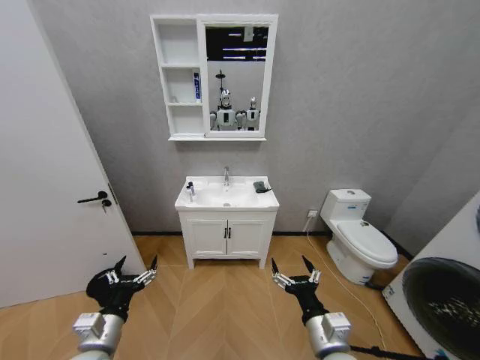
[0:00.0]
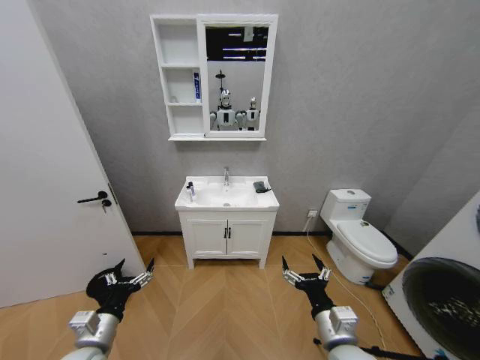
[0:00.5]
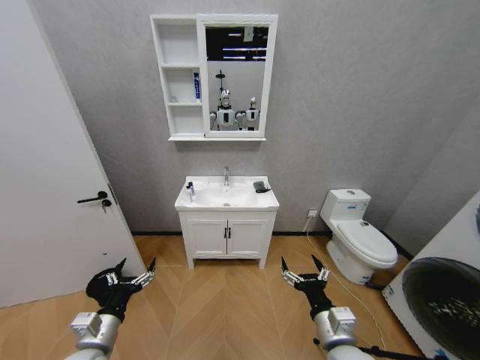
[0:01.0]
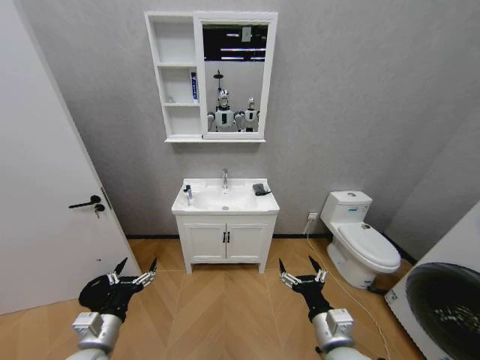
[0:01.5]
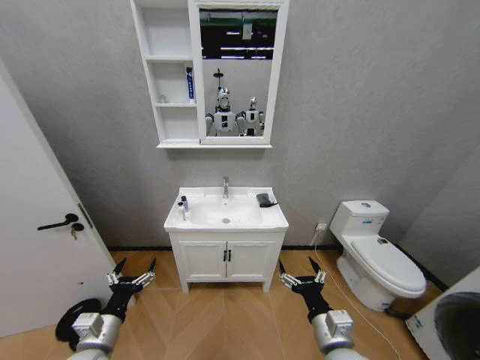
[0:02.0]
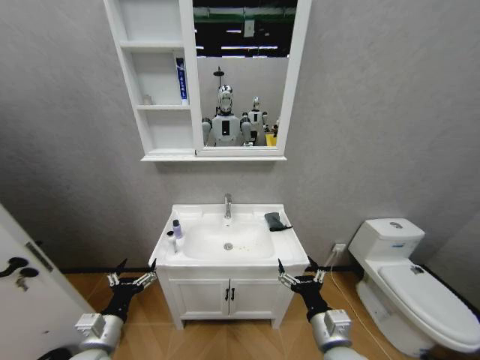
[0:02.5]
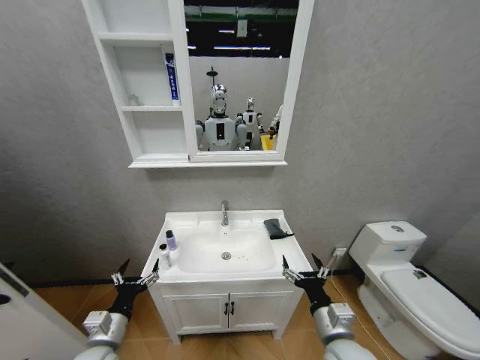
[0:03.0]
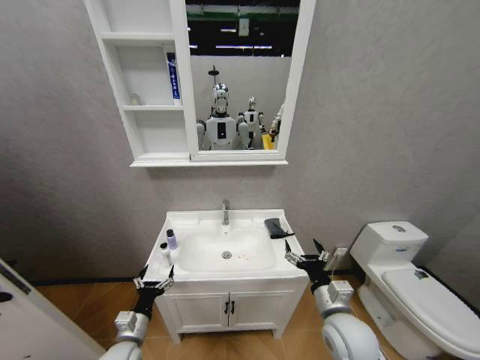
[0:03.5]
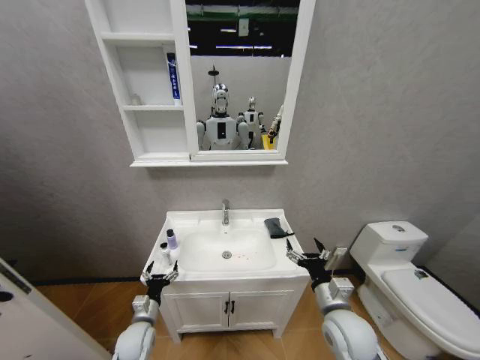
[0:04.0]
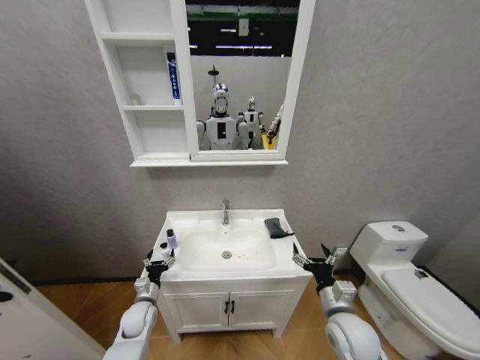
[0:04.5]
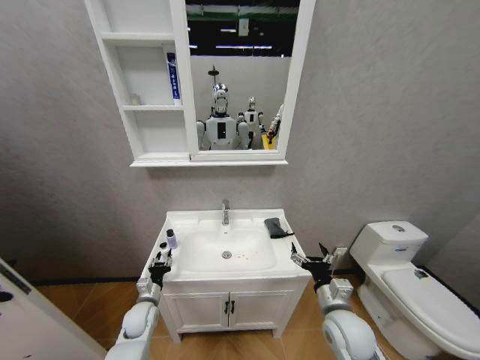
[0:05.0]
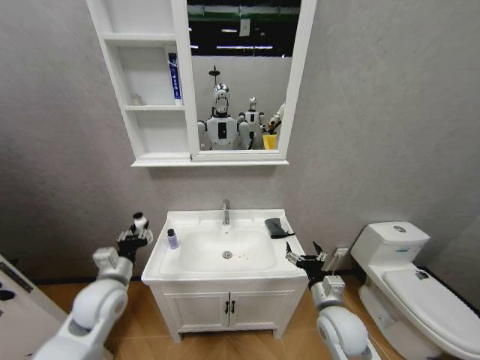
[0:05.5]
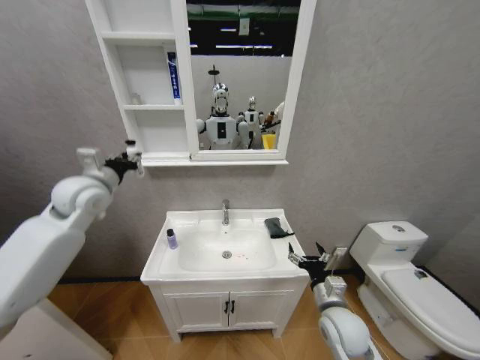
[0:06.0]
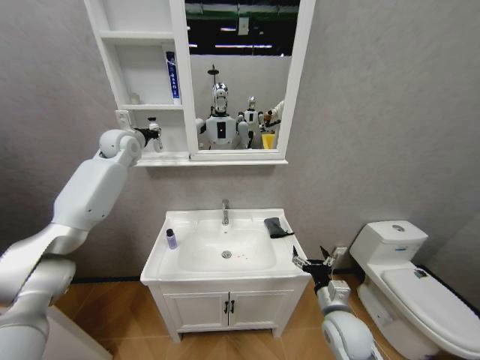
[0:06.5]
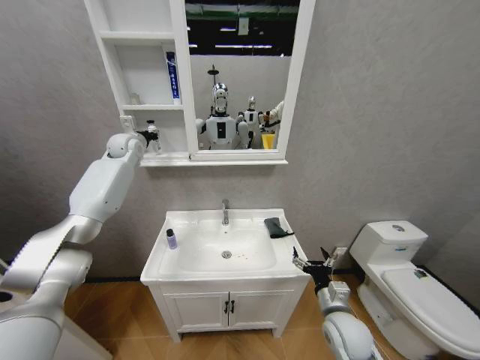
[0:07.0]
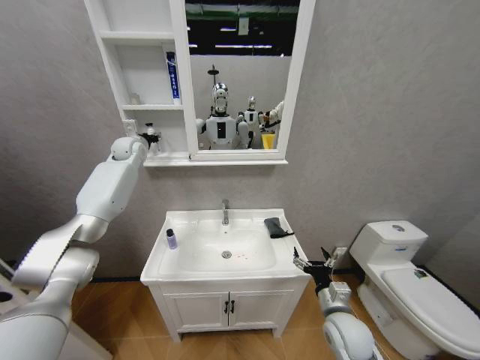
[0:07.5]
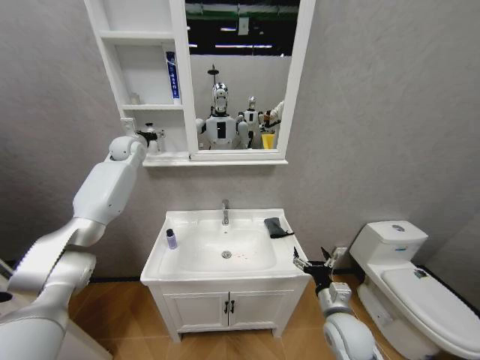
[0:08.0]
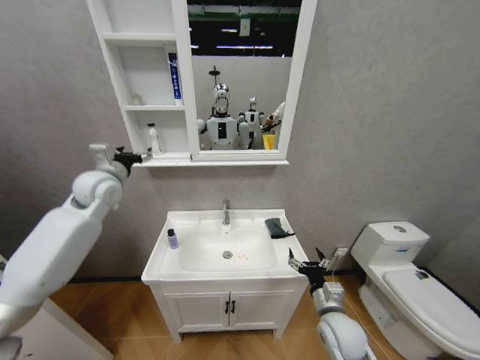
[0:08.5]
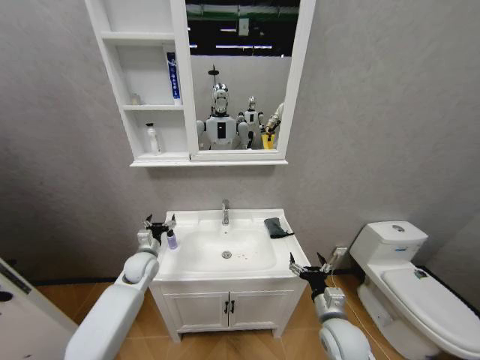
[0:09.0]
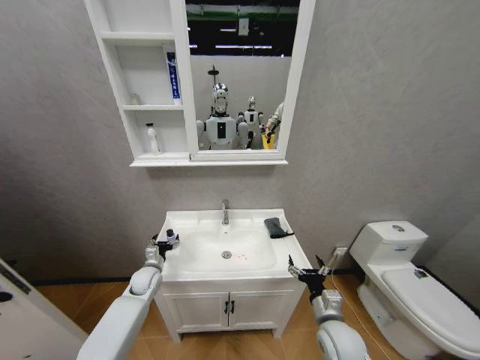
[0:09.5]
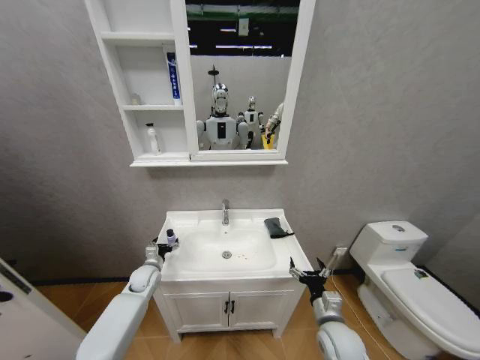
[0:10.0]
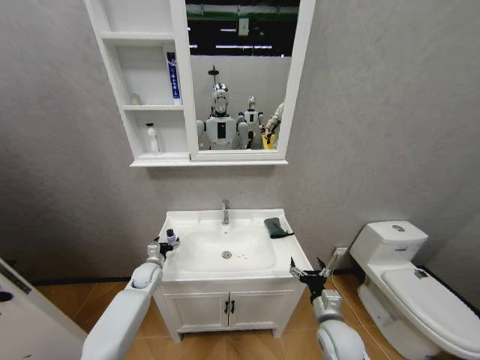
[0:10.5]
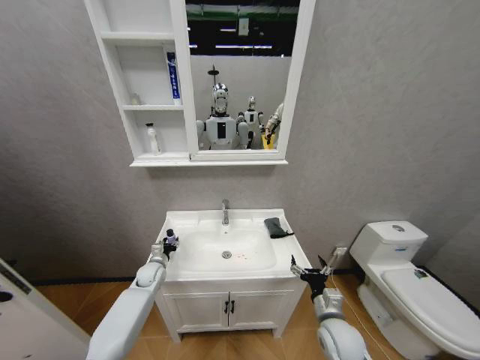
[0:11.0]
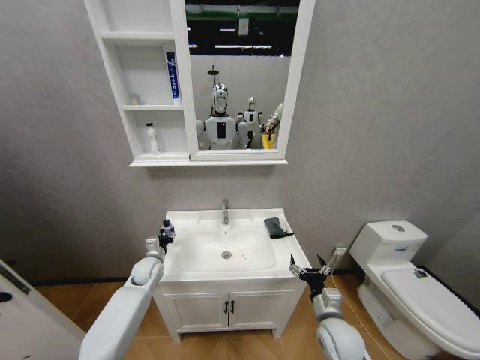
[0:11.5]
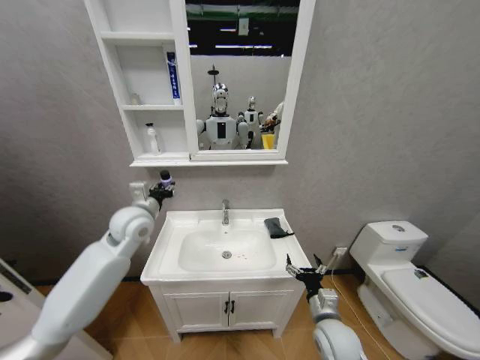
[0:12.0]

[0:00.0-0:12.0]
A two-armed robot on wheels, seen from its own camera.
Task of the whole recording: Move facial cleanser and shampoo from washbasin to cabinet, then wipe washbasin with towel.
0:02.0 to 0:04.0: The left gripper shifts about 15 cm downward and forward. The right gripper goes about 5 cm forward.
0:04.0 to 0:06.0: The left gripper is displaced upward and forward by roughly 50 cm, and closes up.
0:06.0 to 0:08.0: The left gripper goes about 20 cm forward, and opens its fingers.
0:08.0 to 0:10.0: The left gripper shifts about 50 cm downward and backward.
0:10.0 to 0:12.0: The left gripper heads upward, covering approximately 30 cm, and closes its fingers.

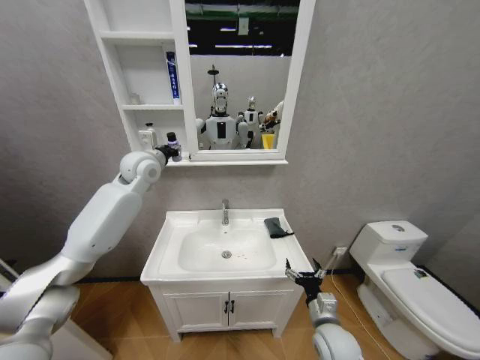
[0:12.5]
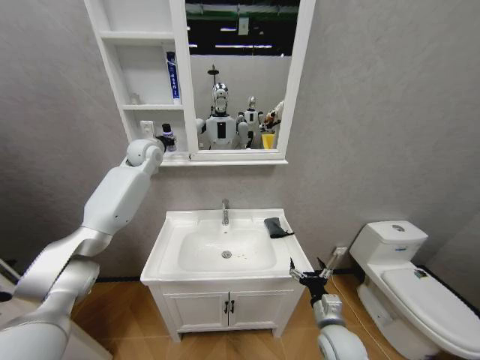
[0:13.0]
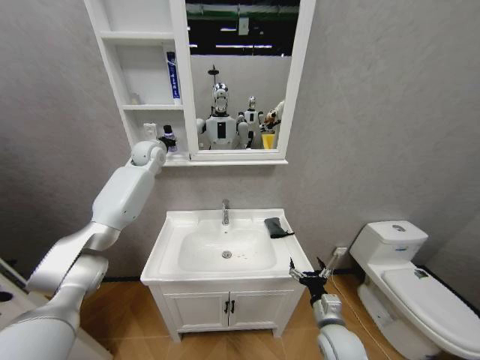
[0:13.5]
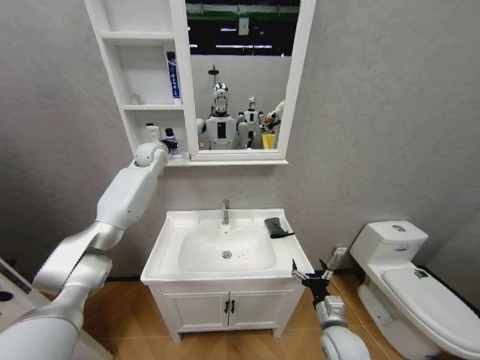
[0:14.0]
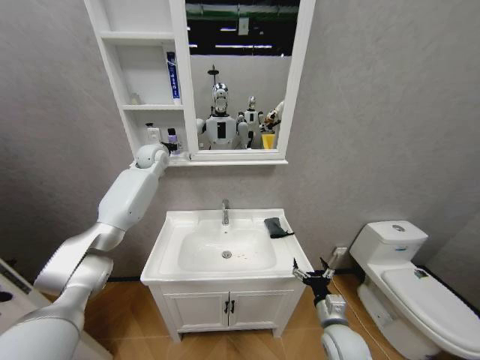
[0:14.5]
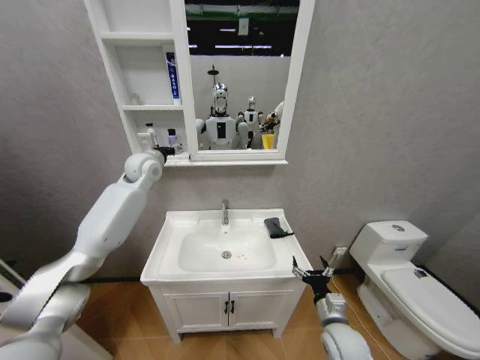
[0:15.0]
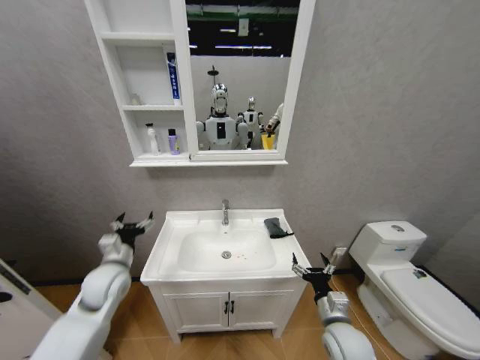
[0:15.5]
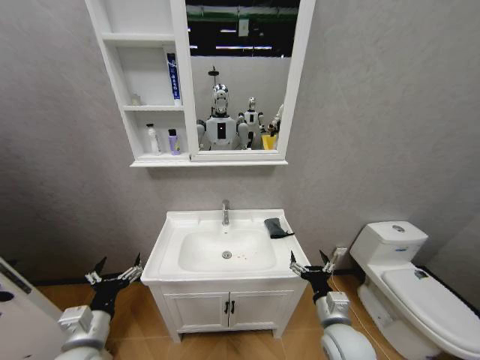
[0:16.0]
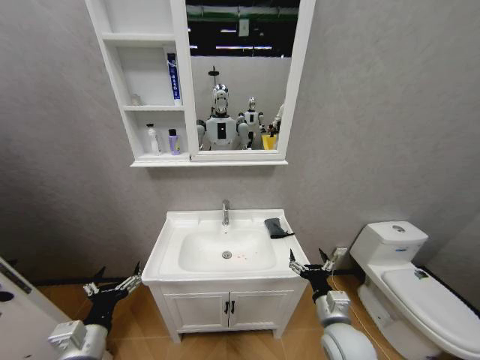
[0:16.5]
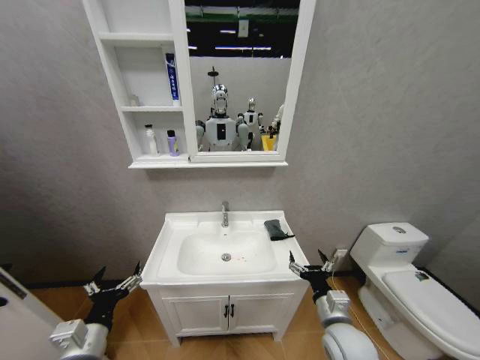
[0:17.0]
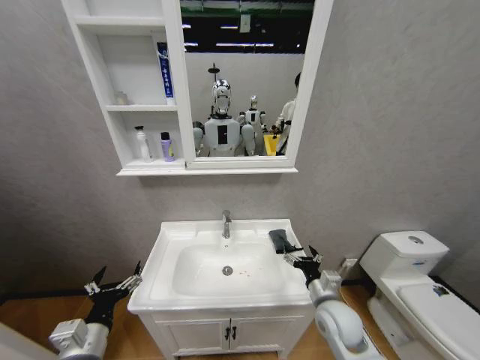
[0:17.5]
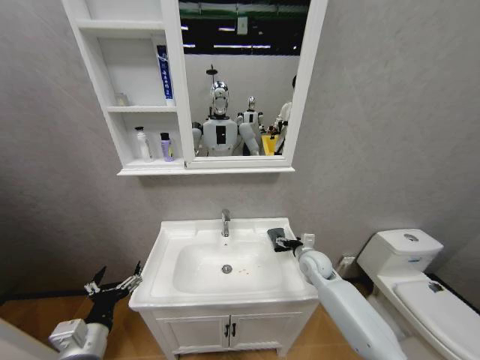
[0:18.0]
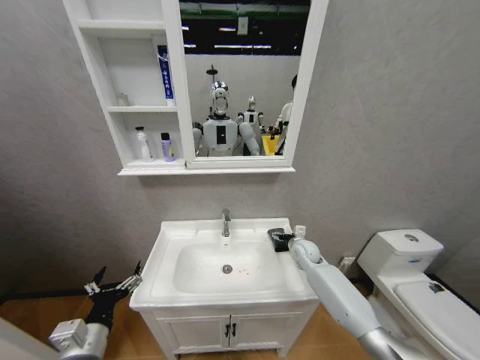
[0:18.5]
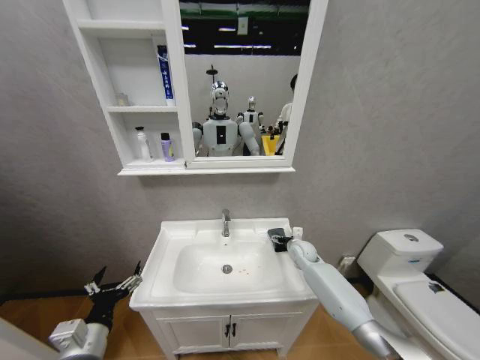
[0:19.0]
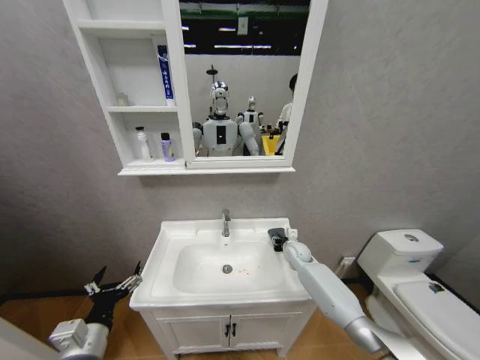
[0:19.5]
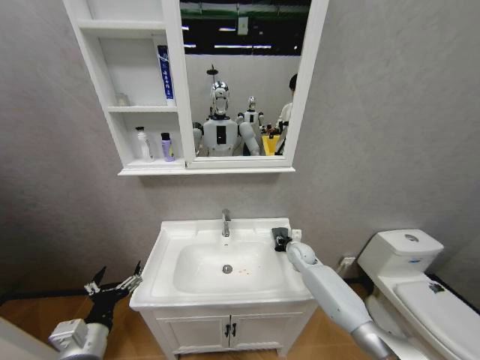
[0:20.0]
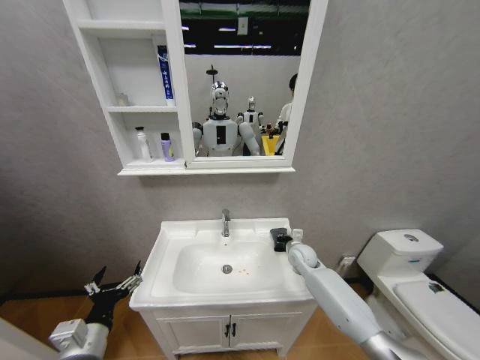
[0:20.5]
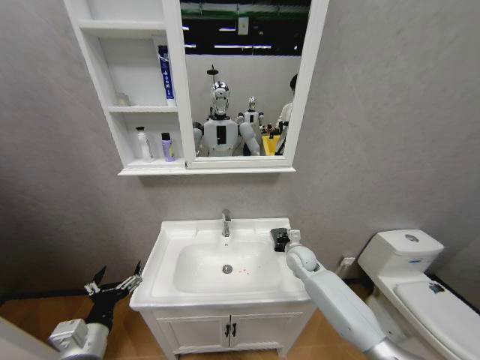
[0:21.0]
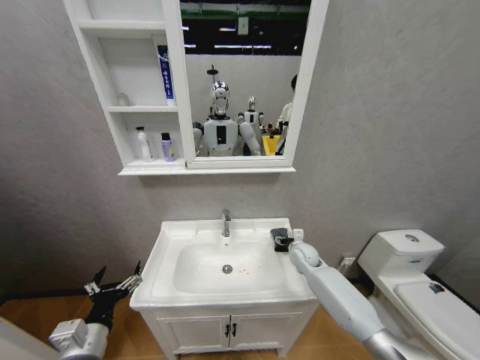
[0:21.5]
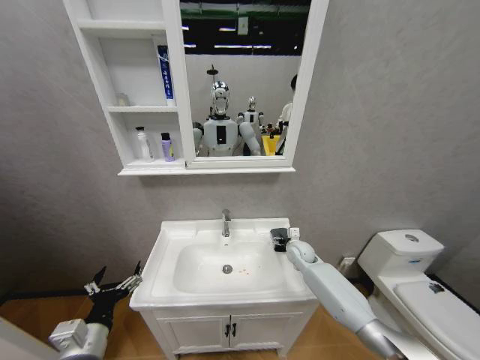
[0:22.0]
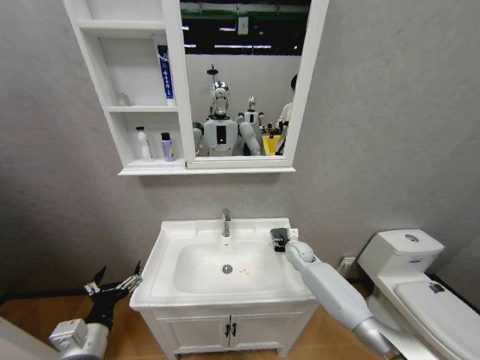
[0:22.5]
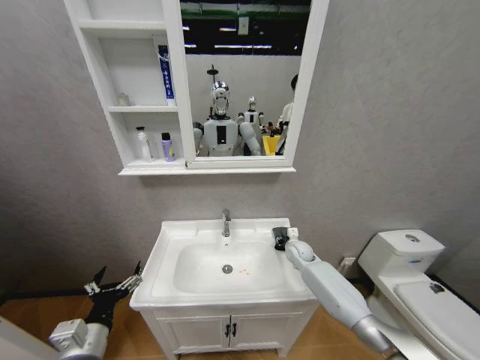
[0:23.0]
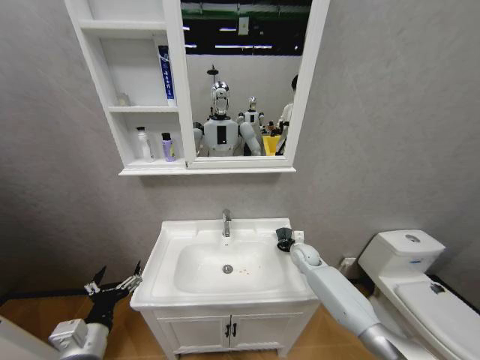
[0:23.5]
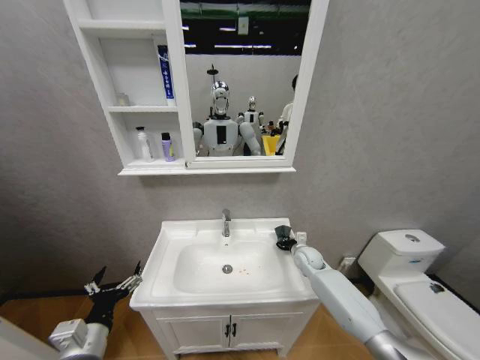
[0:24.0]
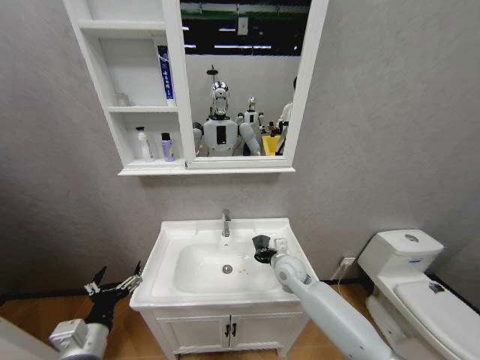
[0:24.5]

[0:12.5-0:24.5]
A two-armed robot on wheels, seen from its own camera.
Task of the whole recording: Move facial cleanser and shampoo from washbasin to cabinet, then wipe washbasin with towel.
0:12.5 to 0:14.5: The left gripper goes some 10 cm forward, and opens.
0:14.5 to 0:16.5: The right gripper moves upward, approximately 5 cm, while the left gripper goes approximately 60 cm backward and downward.
0:16.5 to 0:18.5: The right gripper heads forward, covering approximately 25 cm.
0:18.5 to 0:20.5: The right gripper closes its fingers.
0:20.5 to 0:22.5: The right gripper opens.
0:22.5 to 0:24.5: The right gripper is displaced backward and to the left by approximately 15 cm, and closes up.

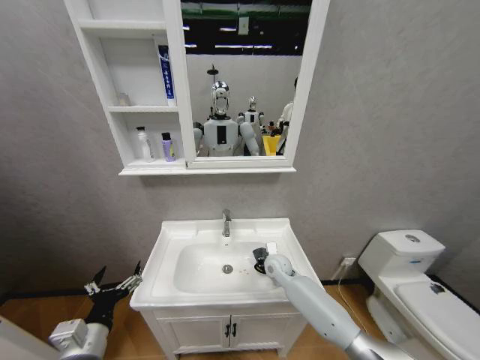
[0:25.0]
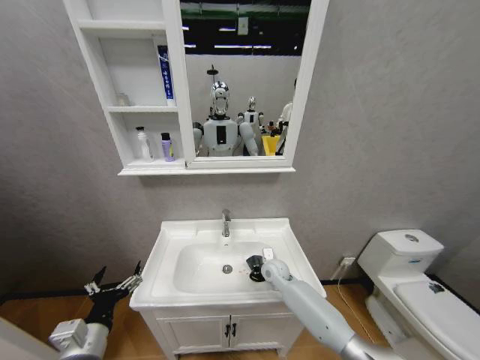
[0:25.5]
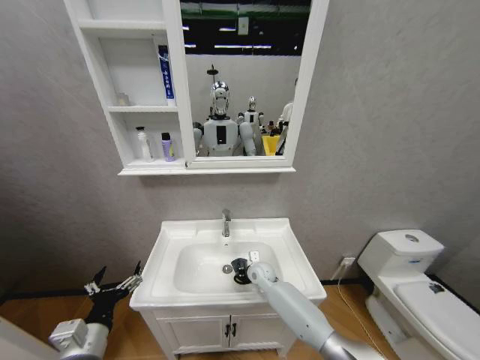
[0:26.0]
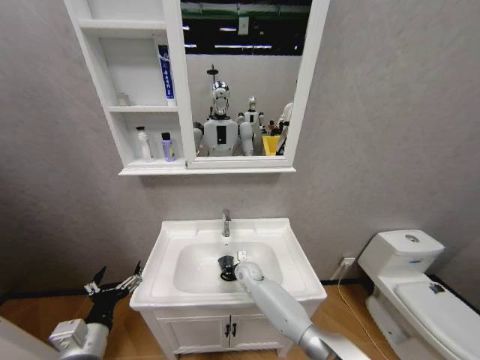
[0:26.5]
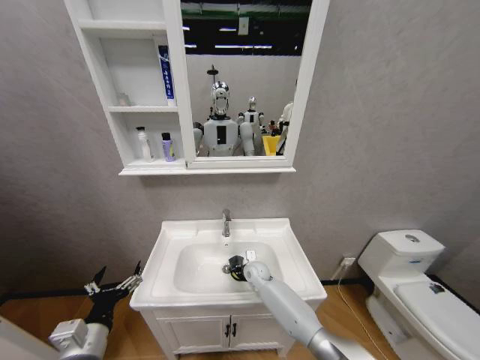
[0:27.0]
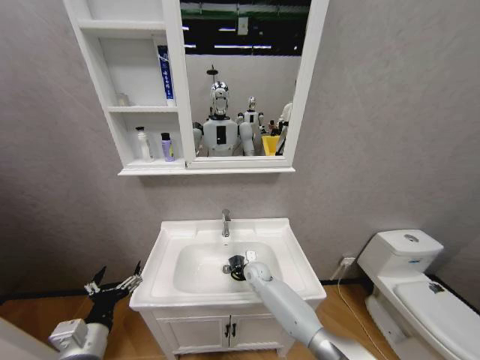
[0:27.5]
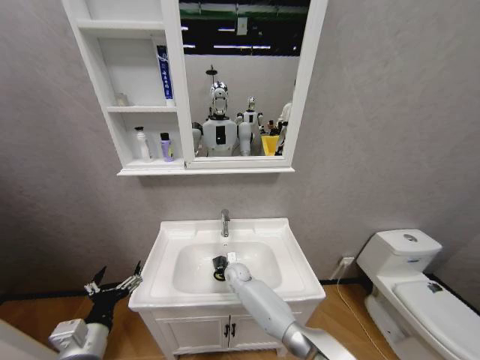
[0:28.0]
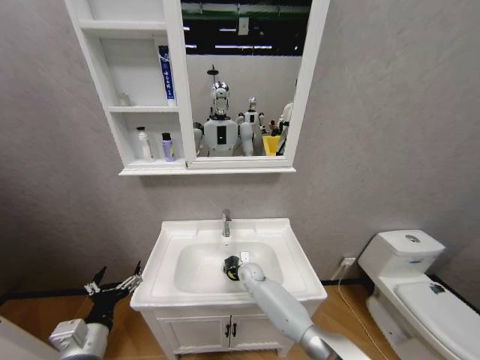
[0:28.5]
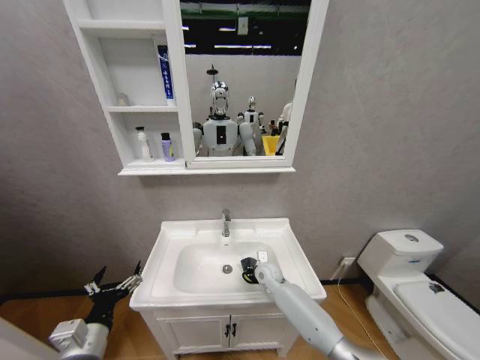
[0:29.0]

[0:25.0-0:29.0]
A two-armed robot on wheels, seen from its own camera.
Task of the whole recording: Move facial cleanser and shampoo from washbasin to cabinet, then wipe washbasin with towel.
0:25.0 to 0:27.0: The right gripper is displaced downward and to the left by about 10 cm.
0:27.0 to 0:29.0: The right gripper shifts by about 5 cm.
